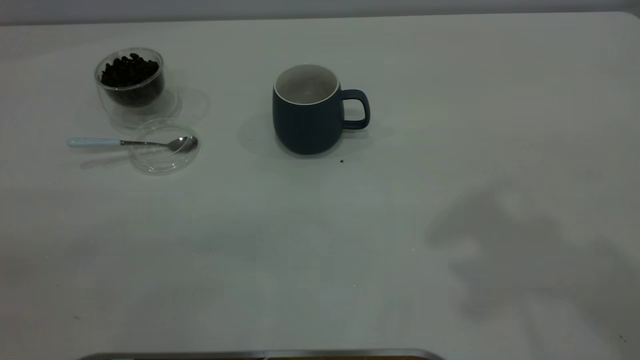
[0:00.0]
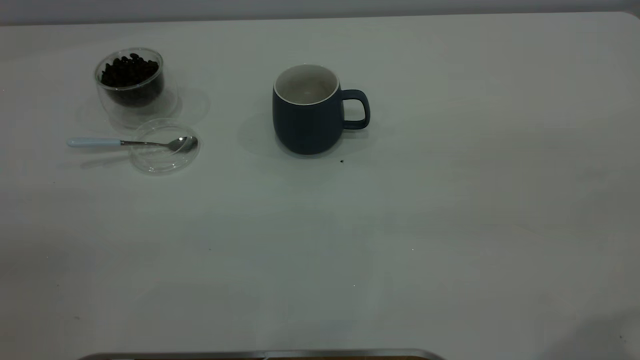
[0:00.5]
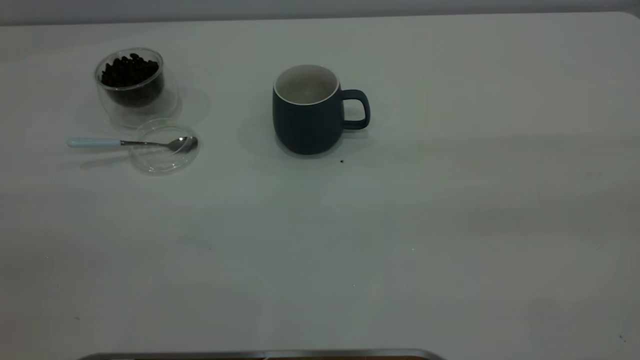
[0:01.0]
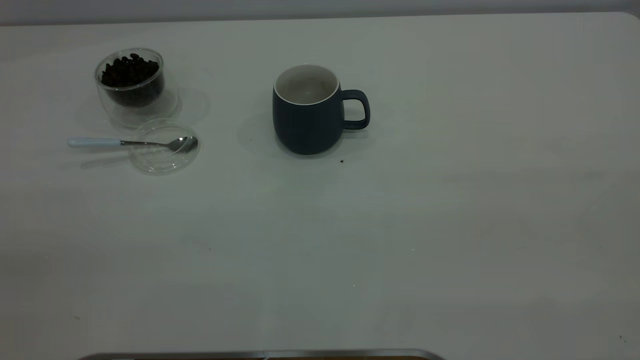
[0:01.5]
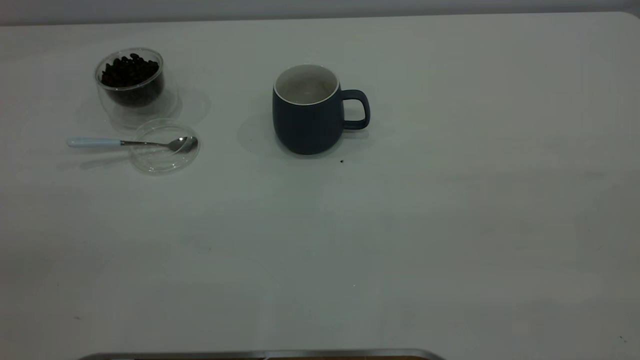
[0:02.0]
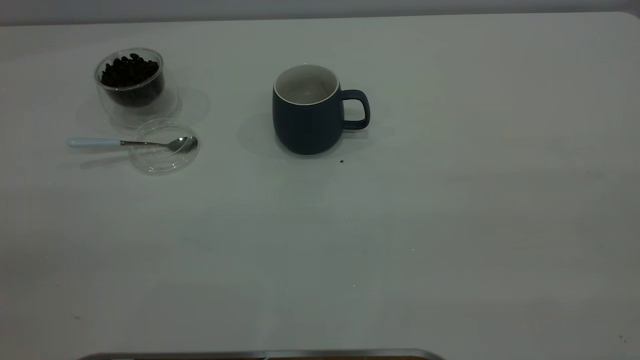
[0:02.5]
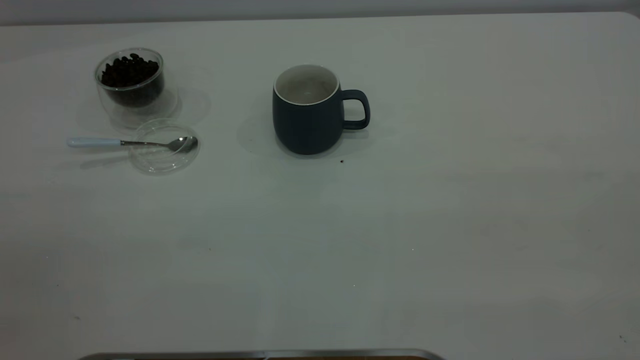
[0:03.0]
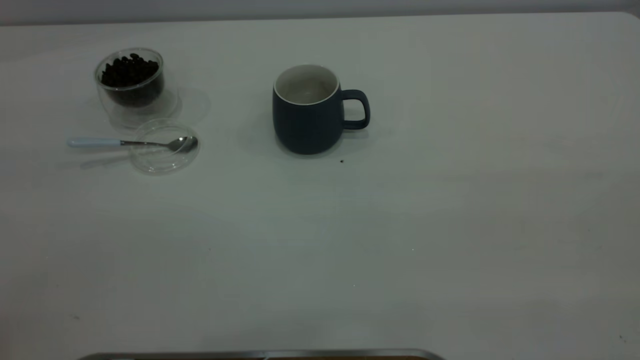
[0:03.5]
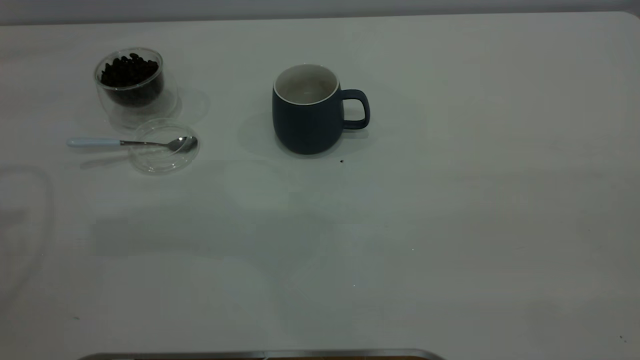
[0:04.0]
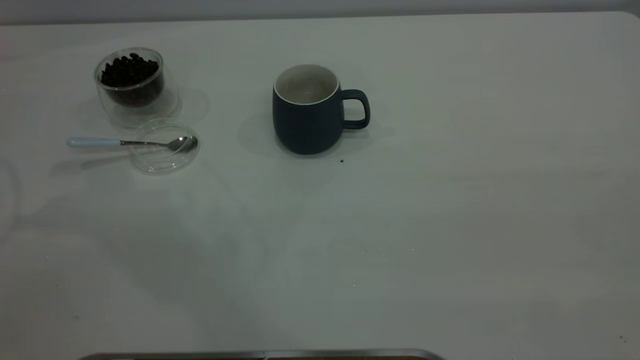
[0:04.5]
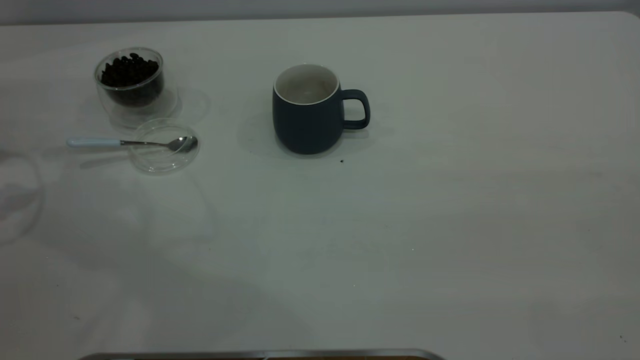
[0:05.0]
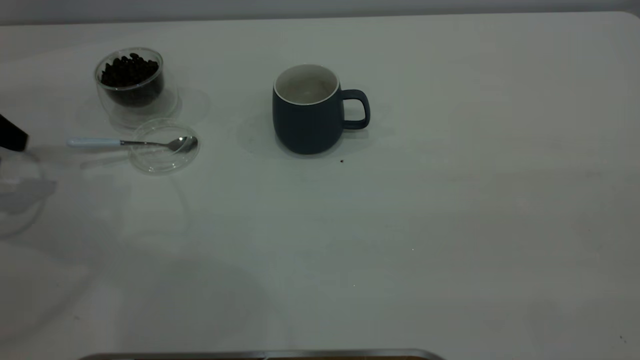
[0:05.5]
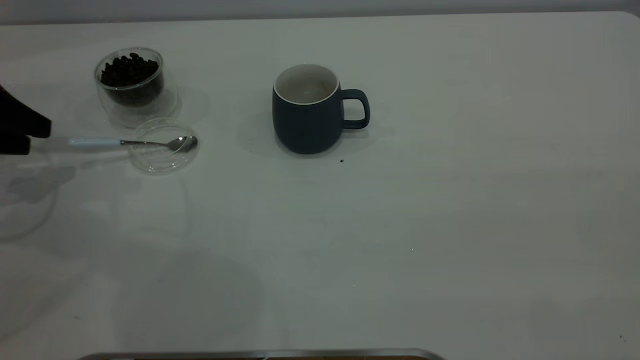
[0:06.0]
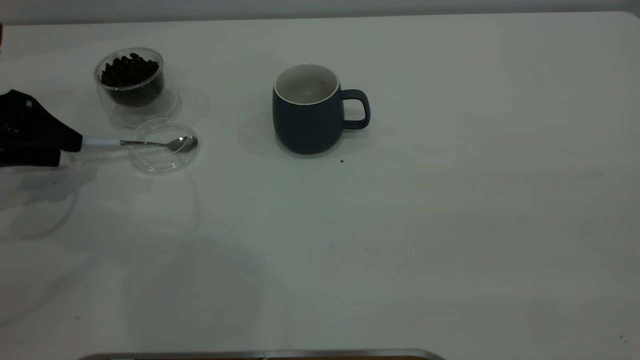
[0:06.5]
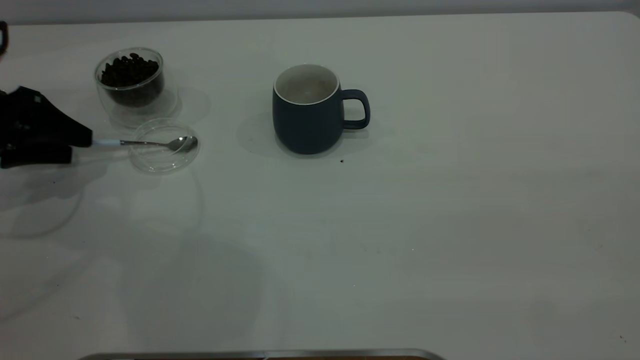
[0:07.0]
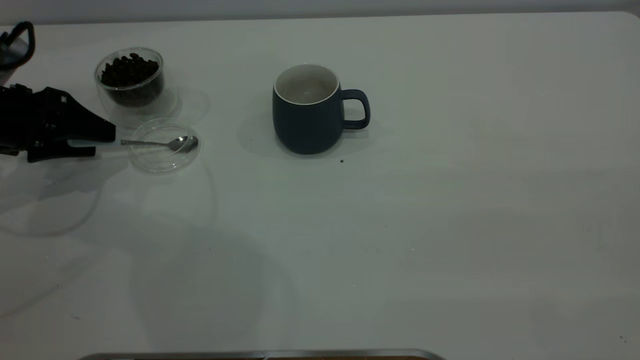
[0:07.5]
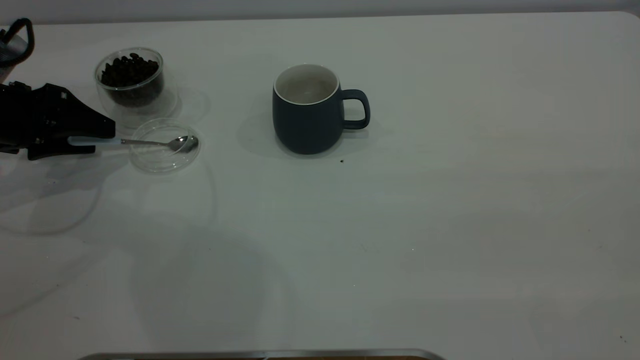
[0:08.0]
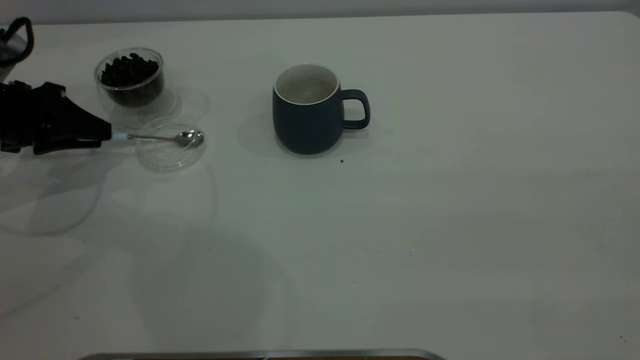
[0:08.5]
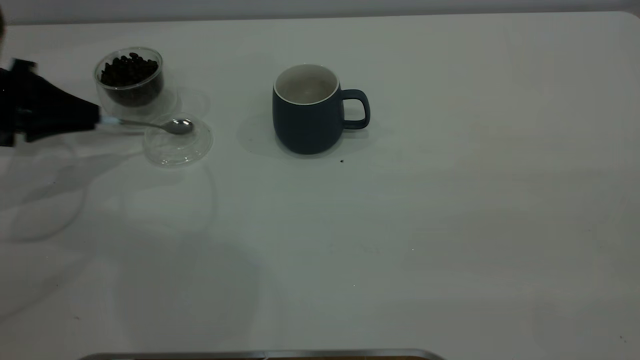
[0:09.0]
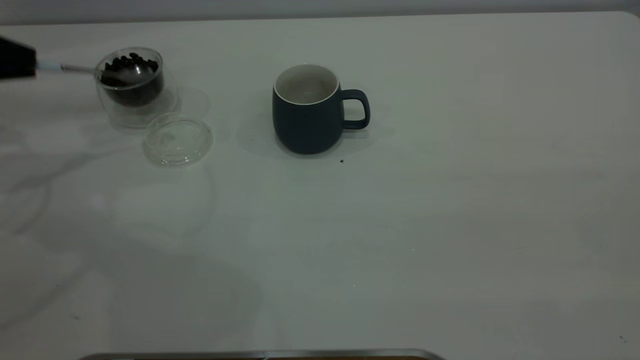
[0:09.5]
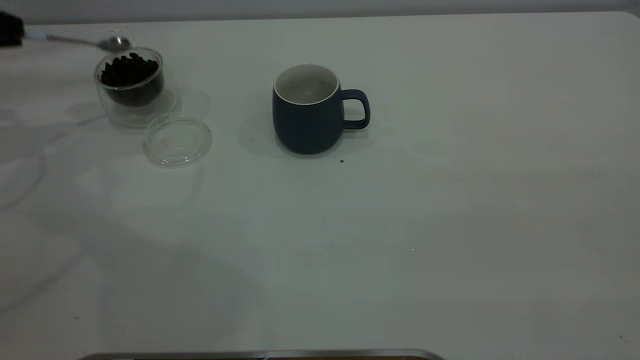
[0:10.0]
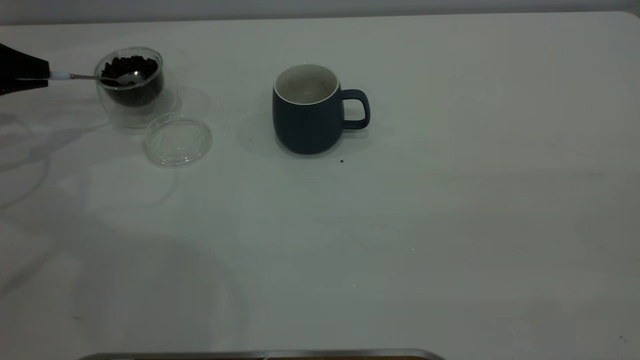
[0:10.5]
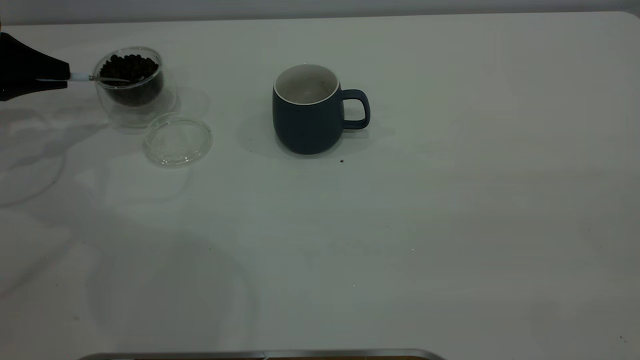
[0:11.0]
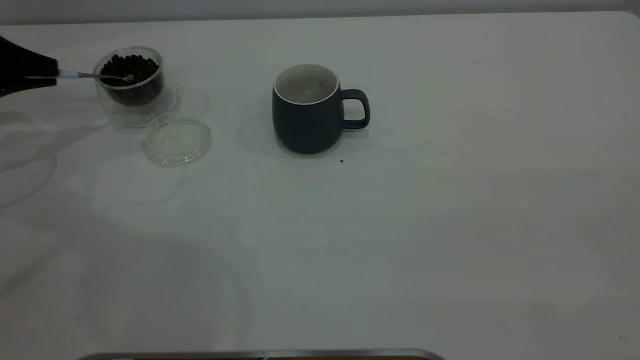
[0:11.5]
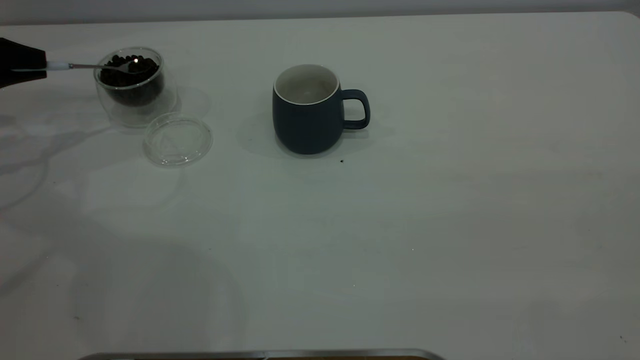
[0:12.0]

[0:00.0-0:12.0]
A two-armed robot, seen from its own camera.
Task of the whole recording: the right gripper place the grey cup in the center of the table, the left gripper take the blue spoon from the cup lid and scoop out the coffee beans from the coffee cup and put them into the grey cup, the left gripper put the spoon back into the cup lid.
Step, 0:00.0 to 0:09.5: Pick up the spoon.
0:04.0 to 0:06.0: The left gripper heads downward, covering approximately 25 cm.
0:06.0 to 0:08.0: The left gripper ends up roughly 5 cm from where it was.
0:08.0 to 0:10.0: The left gripper heads upward and to the left, covering some 10 cm, and closes its fingers.
0:10.0 to 0:12.0: The grippers make only small movements.

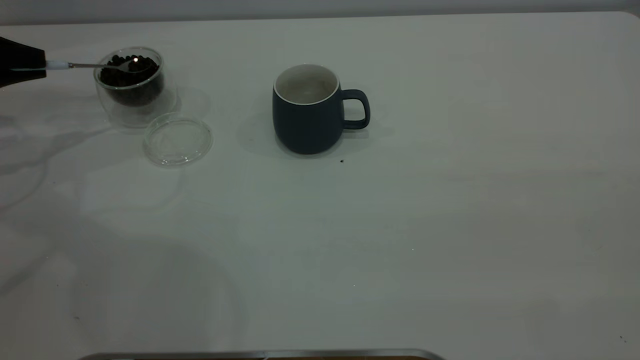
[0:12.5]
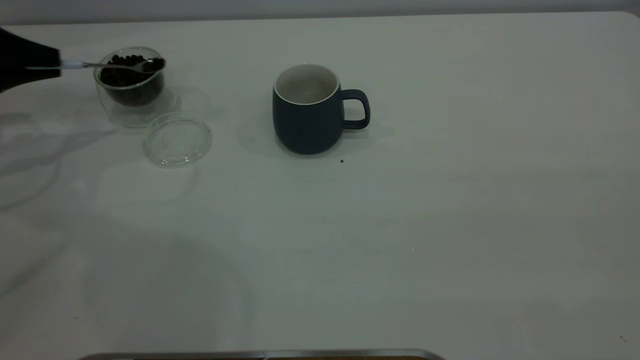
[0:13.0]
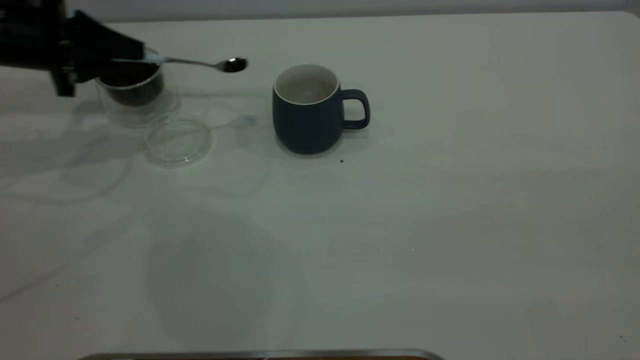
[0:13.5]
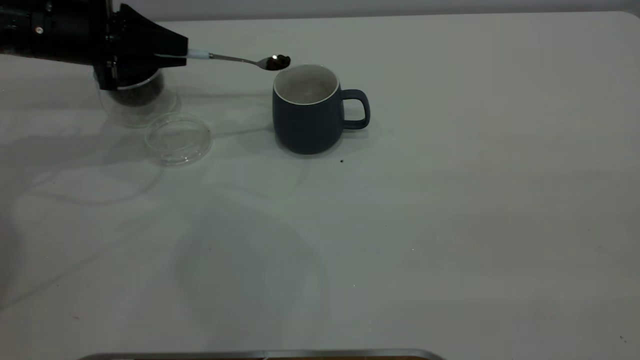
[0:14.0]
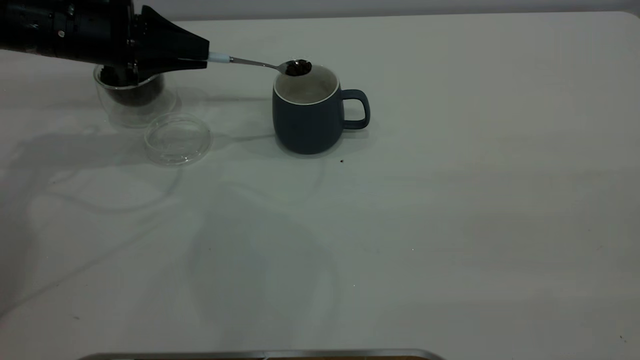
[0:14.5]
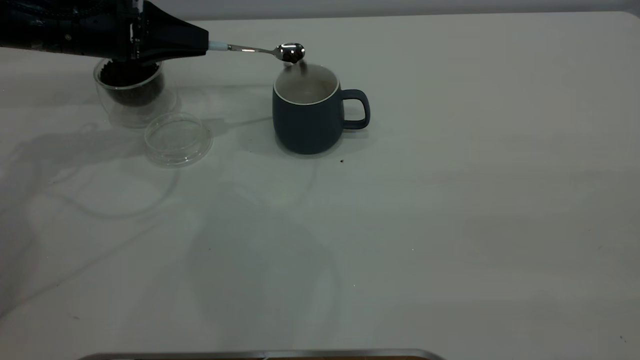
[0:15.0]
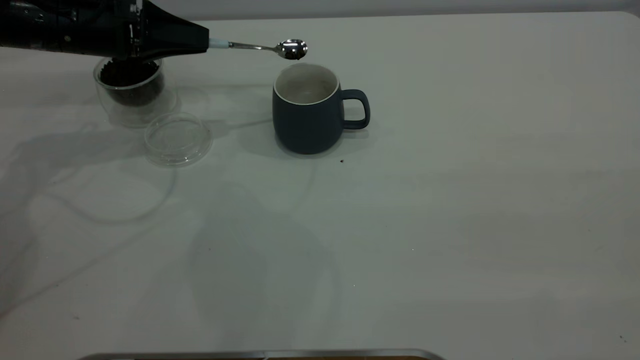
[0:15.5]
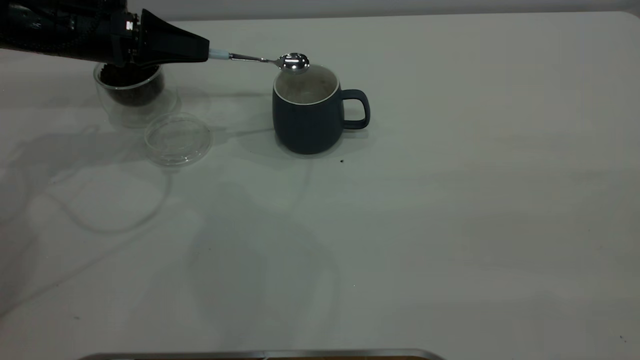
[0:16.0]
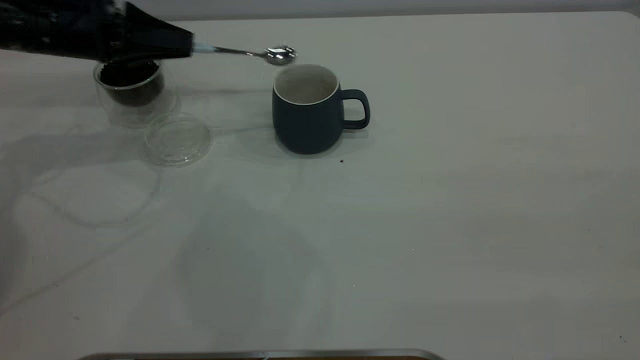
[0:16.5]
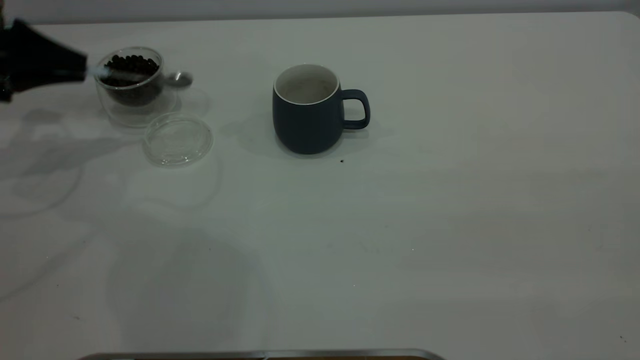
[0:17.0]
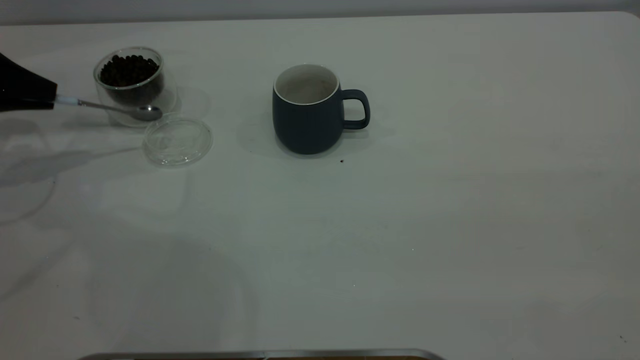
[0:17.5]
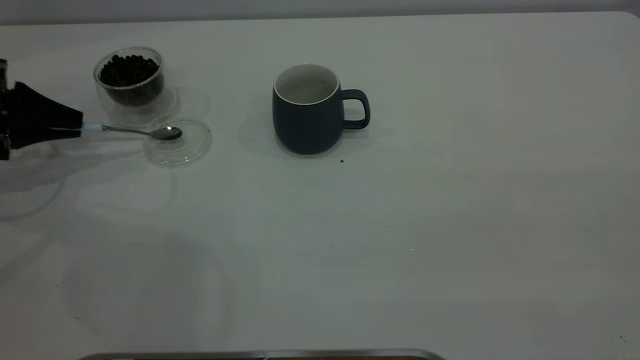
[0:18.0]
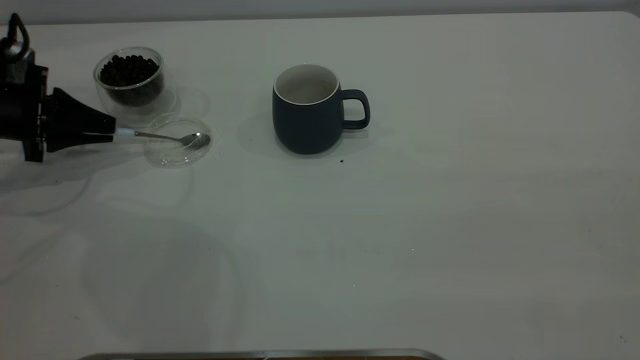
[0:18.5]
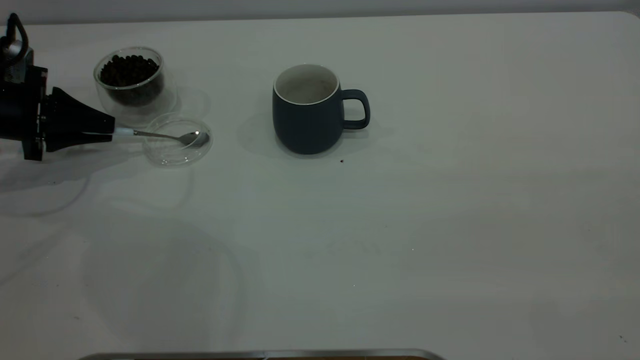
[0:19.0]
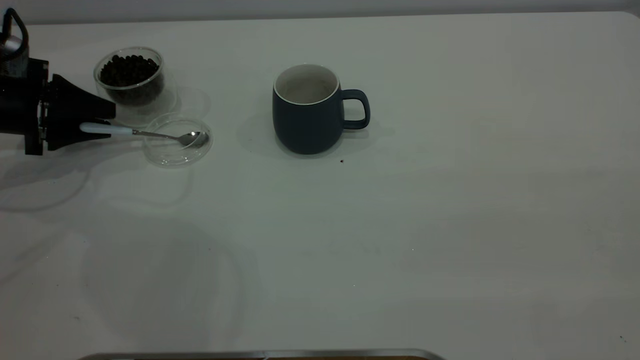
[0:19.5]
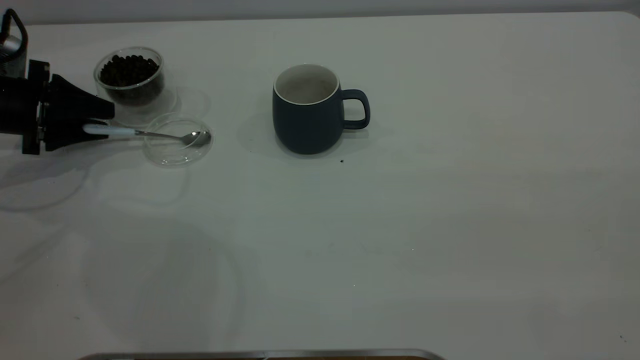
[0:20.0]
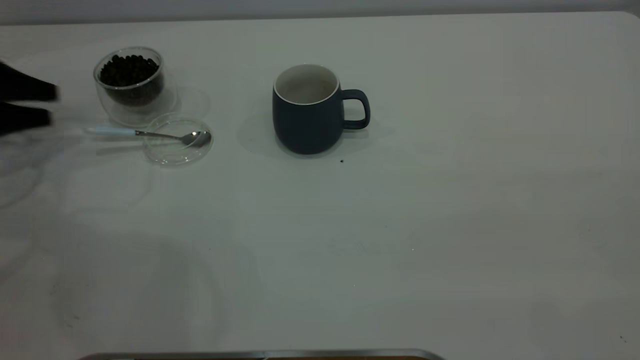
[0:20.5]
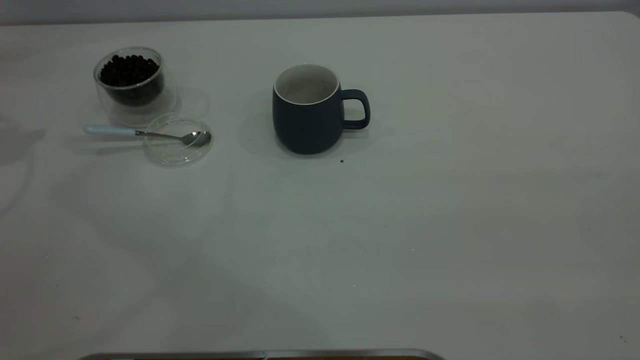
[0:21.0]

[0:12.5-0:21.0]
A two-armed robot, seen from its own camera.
Task of the whole recording: the right gripper place the grey cup in the center of the table, the left gripper take the blue spoon from the cup lid and scoop out the coffee beans from the coffee cup and put them into the grey cup, the left gripper put the spoon back into the cup lid.
Step, 0:12.5 to 0:16.0: Scoop a spoonful of beans into the cup.
Step, 0:16.5 to 0:20.5: Place the spoon back in its original place.
0:12.5 to 0:14.5: The left gripper goes approximately 20 cm to the right.
0:16.5 to 0:19.0: The left gripper shifts approximately 10 cm to the left and downward.
0:19.0 to 0:21.0: The left gripper shifts about 25 cm upward, and opens up.
